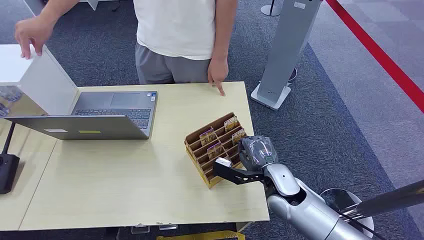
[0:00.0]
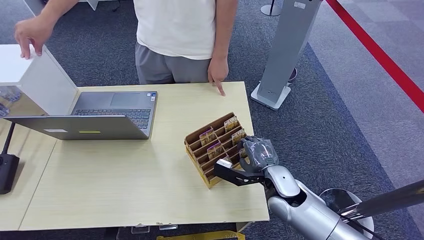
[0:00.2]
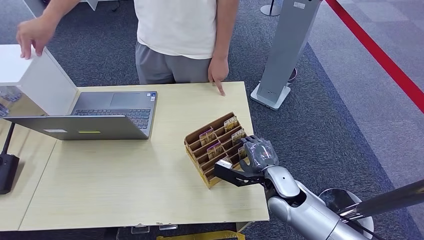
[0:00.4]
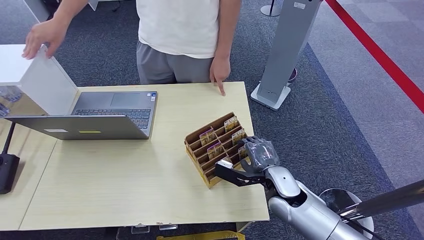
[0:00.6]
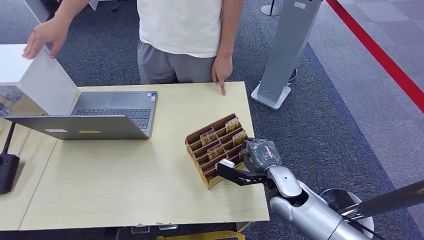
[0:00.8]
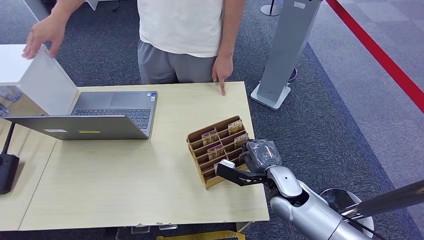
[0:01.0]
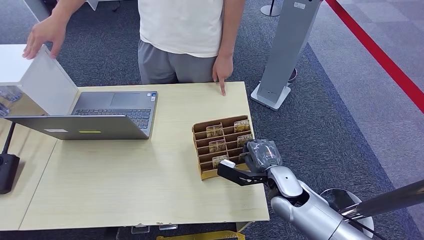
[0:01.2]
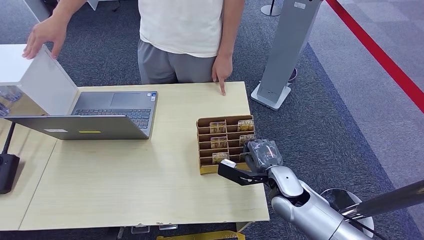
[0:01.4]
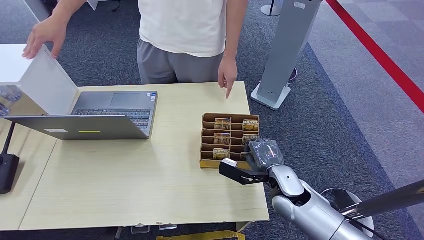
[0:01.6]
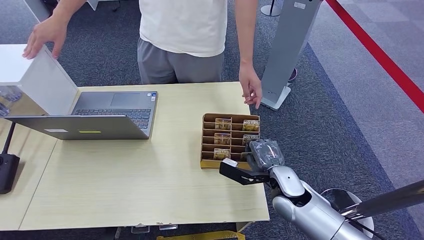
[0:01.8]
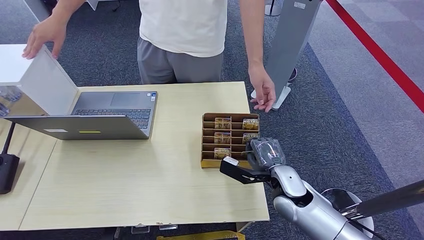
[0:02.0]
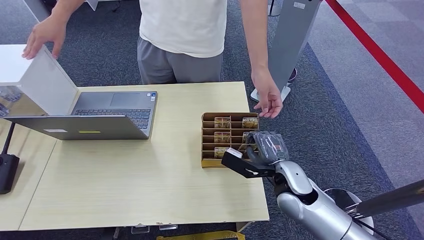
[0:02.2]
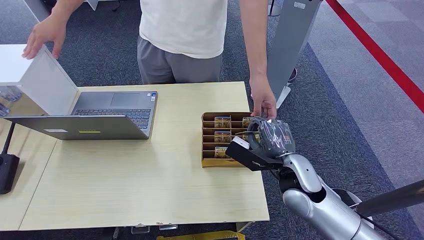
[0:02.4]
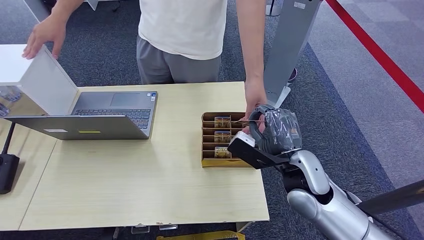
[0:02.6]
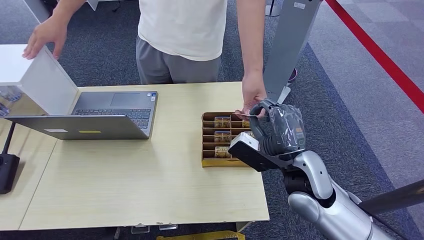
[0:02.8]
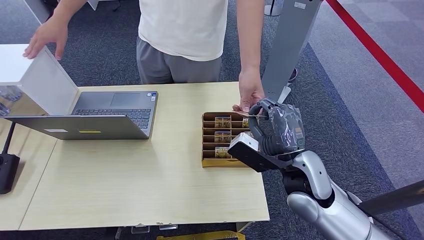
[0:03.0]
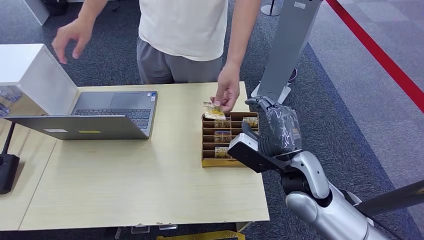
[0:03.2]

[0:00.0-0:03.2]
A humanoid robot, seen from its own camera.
Step, 0:00.0 to 0:02.0: Pick up the room card from the card holder.
Step, 0:02.4 to 0:03.2: Hand the room card to the target.
0:01.6 to 0:03.2: The right hand goes about 10 cm upward.
